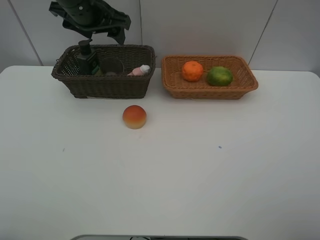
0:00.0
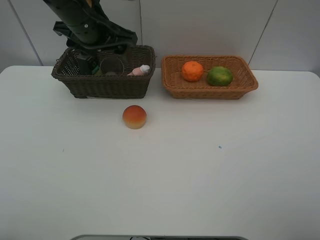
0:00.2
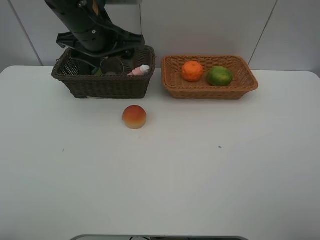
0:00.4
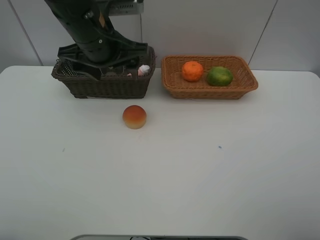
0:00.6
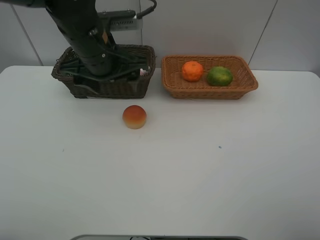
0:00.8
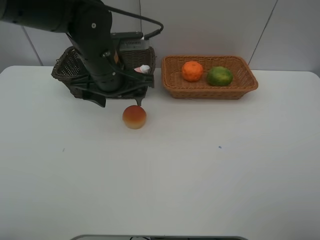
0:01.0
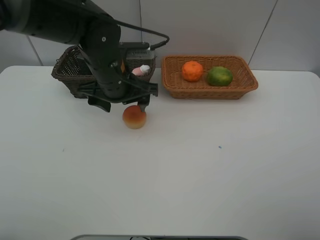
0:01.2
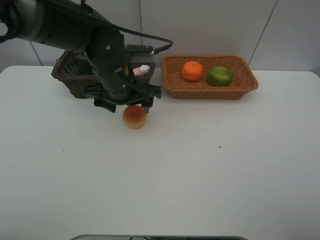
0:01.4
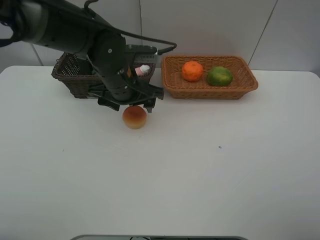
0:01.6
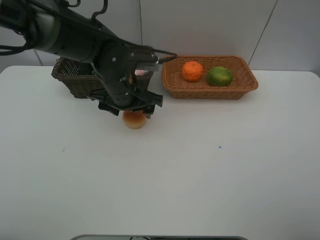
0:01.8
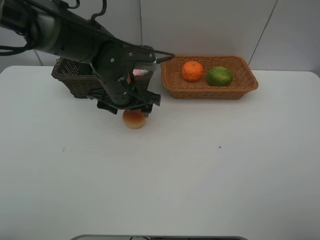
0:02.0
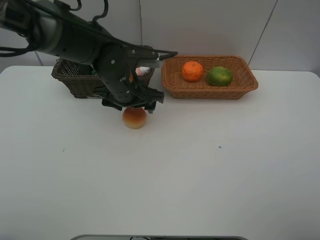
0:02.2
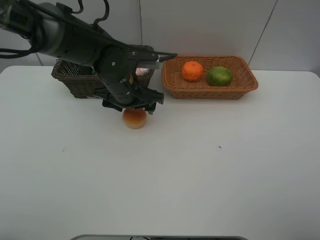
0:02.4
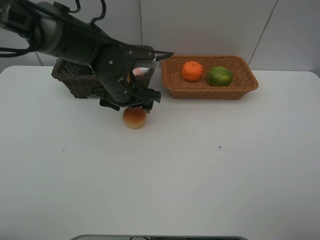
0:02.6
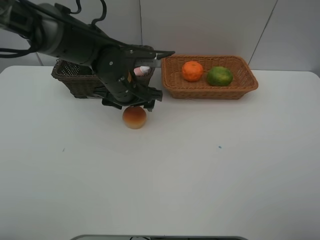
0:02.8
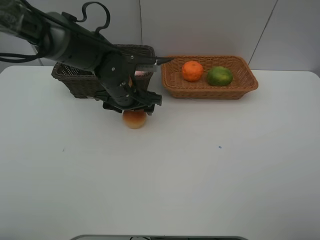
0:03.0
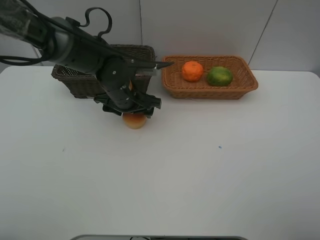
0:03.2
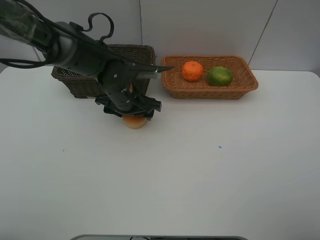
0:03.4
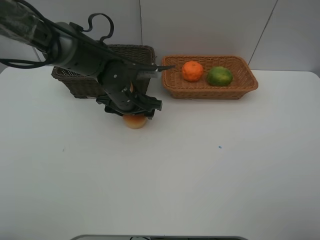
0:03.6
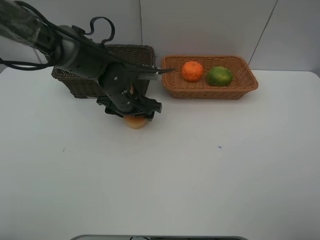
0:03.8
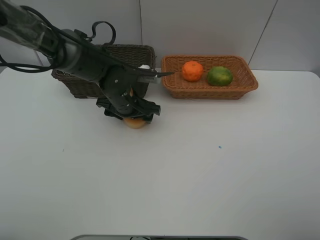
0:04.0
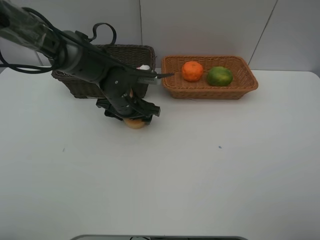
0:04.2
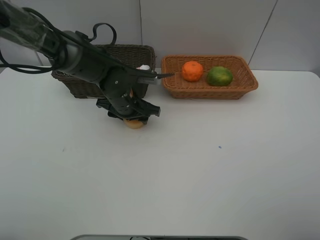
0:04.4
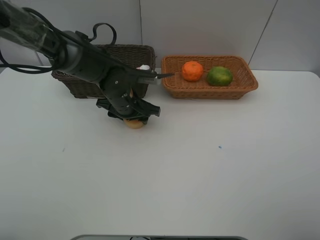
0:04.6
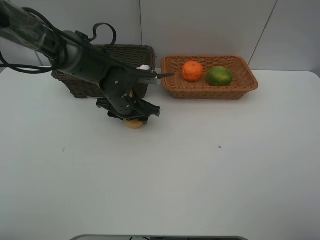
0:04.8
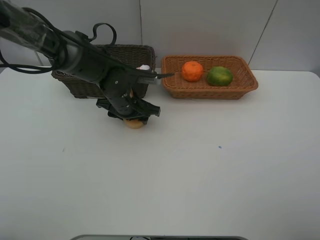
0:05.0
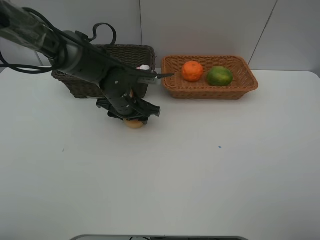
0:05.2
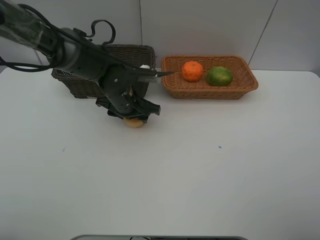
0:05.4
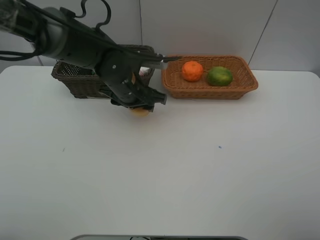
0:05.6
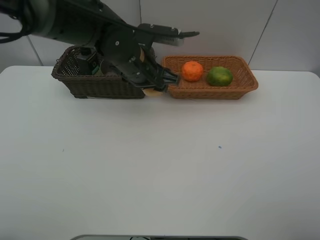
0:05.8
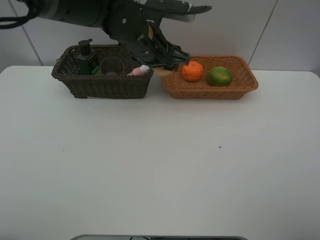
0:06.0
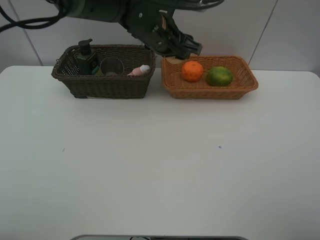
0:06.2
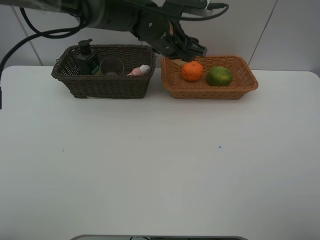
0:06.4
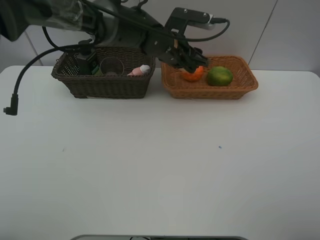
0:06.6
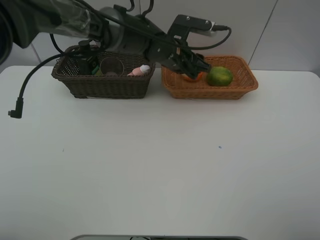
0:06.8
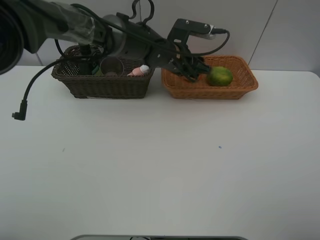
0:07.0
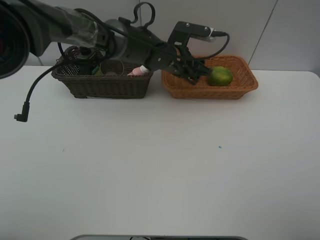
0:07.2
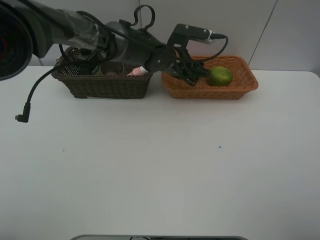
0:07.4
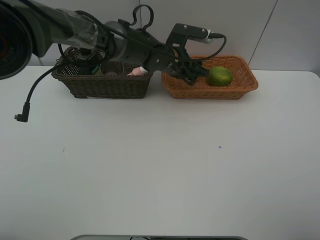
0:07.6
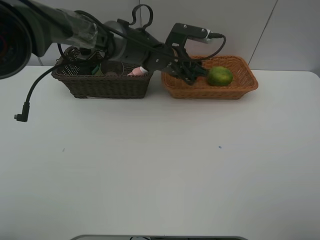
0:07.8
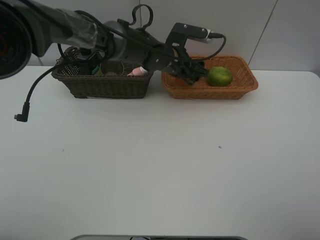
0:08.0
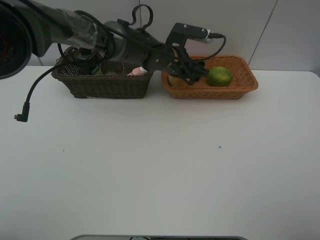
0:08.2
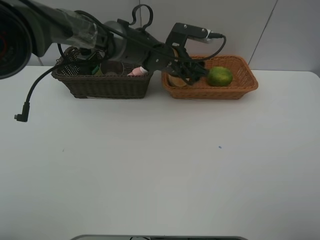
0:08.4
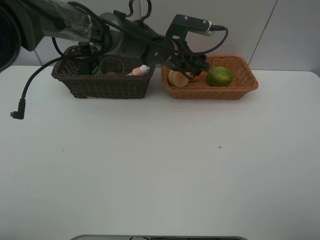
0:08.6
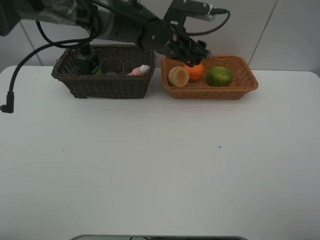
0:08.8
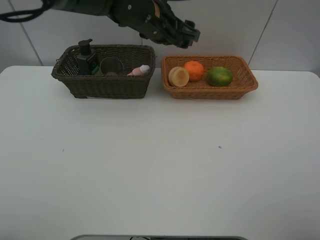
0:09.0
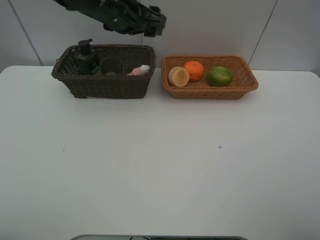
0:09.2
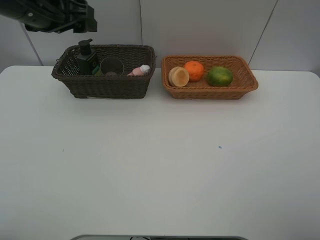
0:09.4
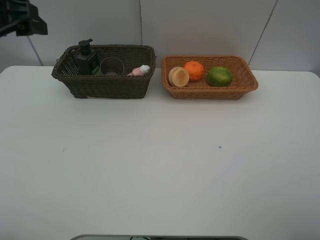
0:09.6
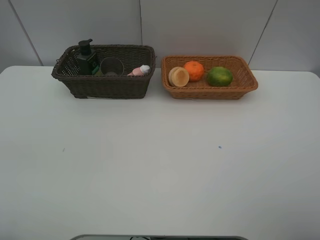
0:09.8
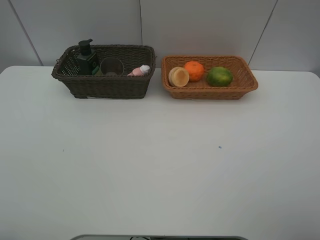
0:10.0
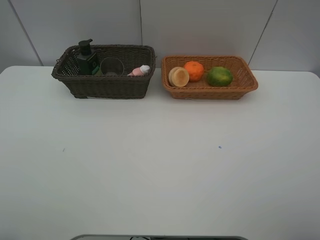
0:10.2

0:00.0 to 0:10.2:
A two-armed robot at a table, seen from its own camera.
Task of the whole recording: place multiple objects separately in different baskets.
0:00.0 to 0:01.4: The left gripper heads downward, backward and to the right, covering some 15 cm.
0:01.4 to 0:03.0: The left gripper ends up roughly 5 cm from where it was.
0:03.0 to 0:04.4: The grippers stay close to where they were, moving slightly.
0:04.4 to 0:05.8: The left gripper travels upward by approximately 10 cm.
0:05.8 to 0:07.2: The left gripper heads to the right and forward, covering some 10 cm.
0:07.2 to 0:08.8: The left gripper shifts roughly 5 cm upward.
0:08.8 to 0:10.2: The left gripper heads backward and to the left, covering about 50 cm.

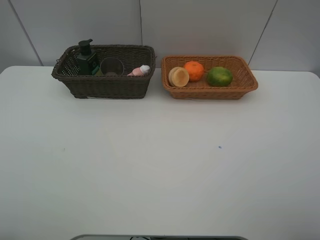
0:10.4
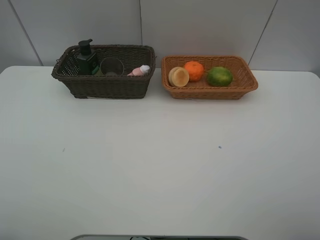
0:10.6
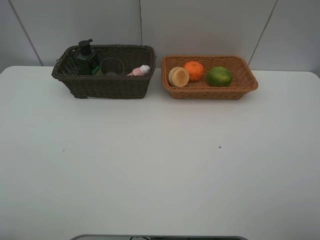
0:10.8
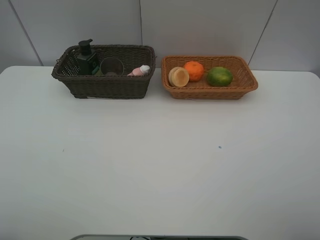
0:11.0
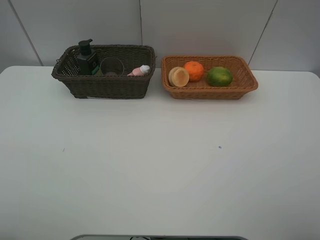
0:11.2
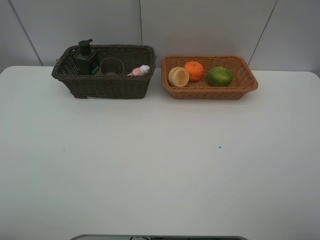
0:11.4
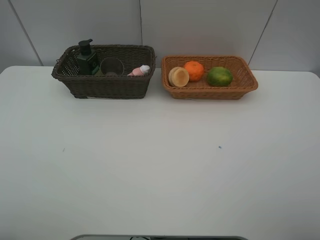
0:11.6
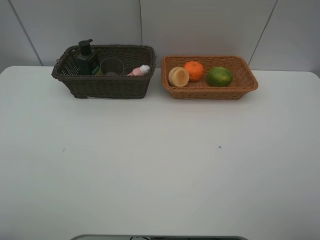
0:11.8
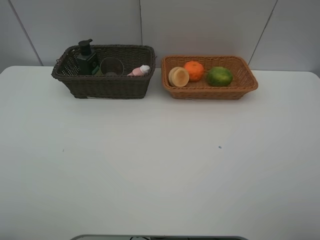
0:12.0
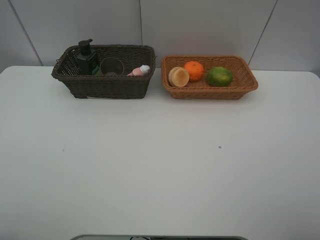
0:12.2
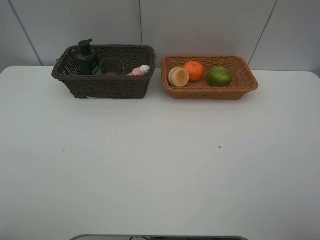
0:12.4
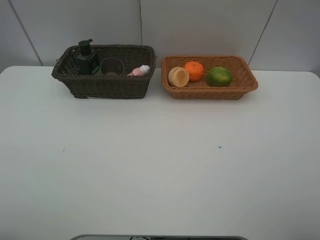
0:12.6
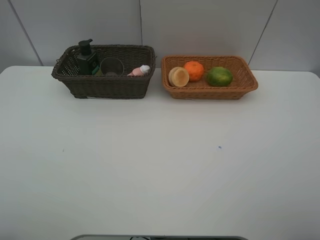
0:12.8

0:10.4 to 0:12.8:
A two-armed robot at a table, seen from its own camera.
Task of the whole recording: place multiple objects separately in different baskets.
0:11.6 to 0:12.8: Neither gripper changes place.

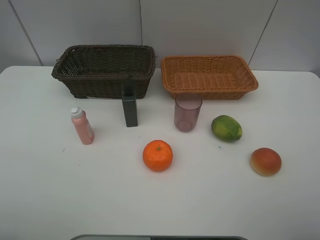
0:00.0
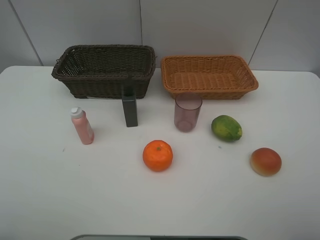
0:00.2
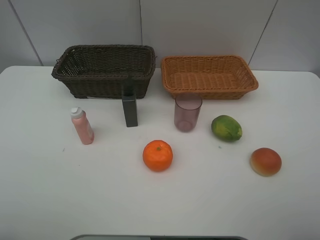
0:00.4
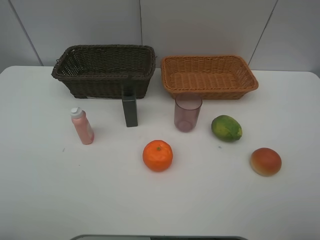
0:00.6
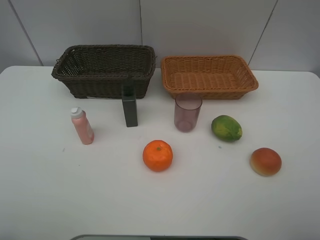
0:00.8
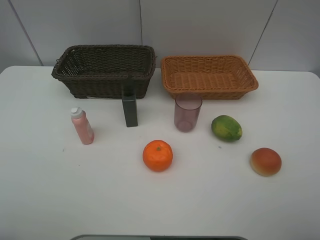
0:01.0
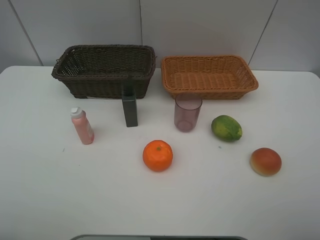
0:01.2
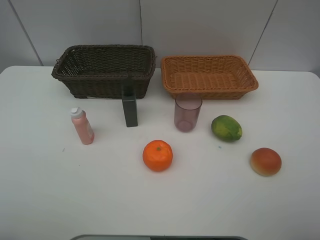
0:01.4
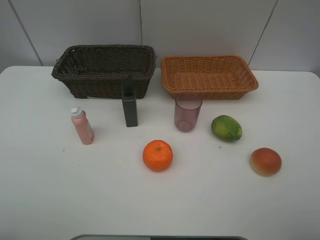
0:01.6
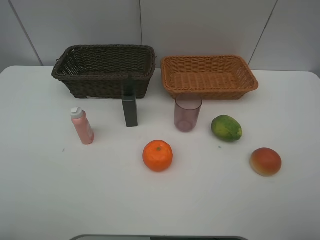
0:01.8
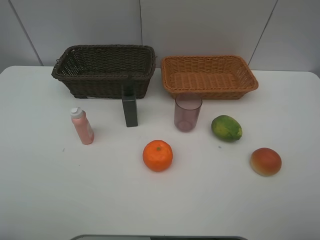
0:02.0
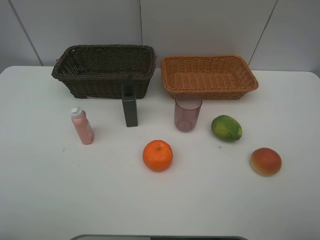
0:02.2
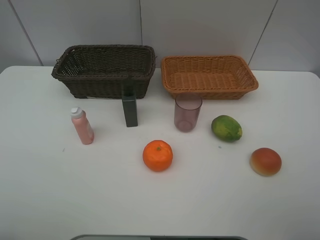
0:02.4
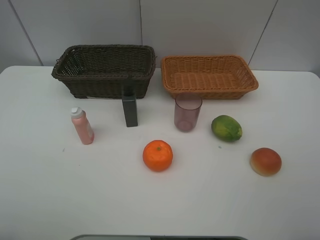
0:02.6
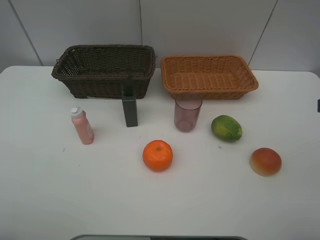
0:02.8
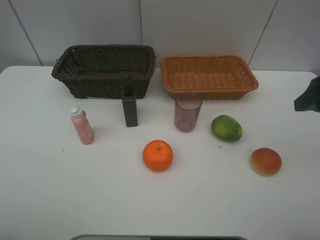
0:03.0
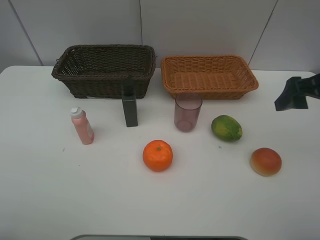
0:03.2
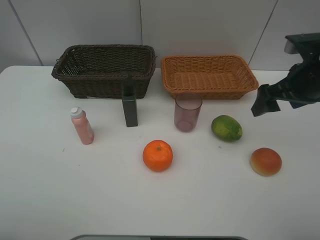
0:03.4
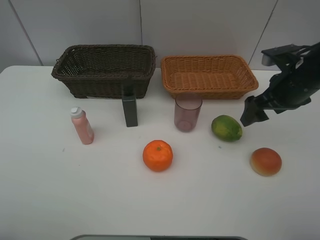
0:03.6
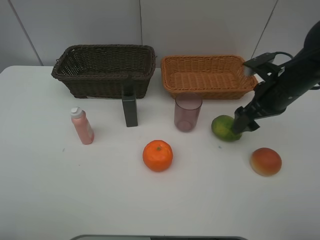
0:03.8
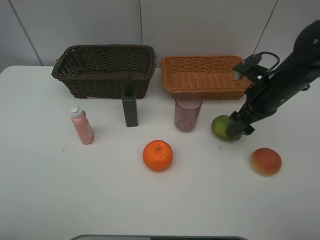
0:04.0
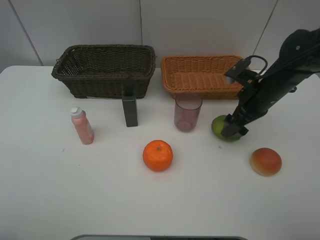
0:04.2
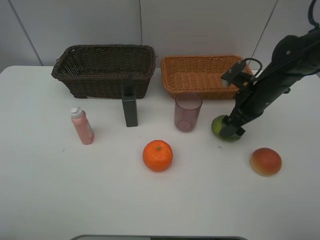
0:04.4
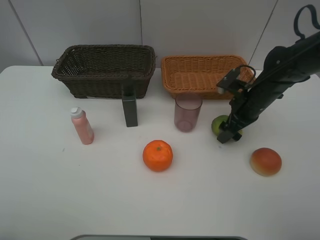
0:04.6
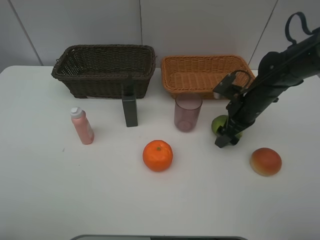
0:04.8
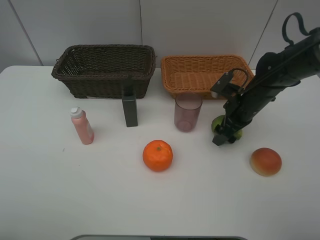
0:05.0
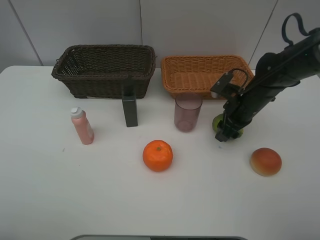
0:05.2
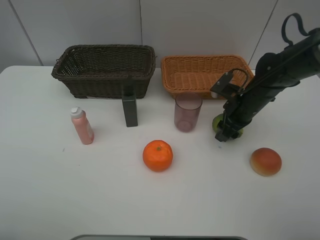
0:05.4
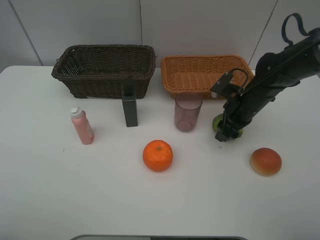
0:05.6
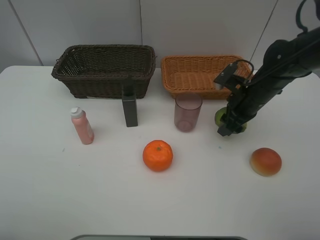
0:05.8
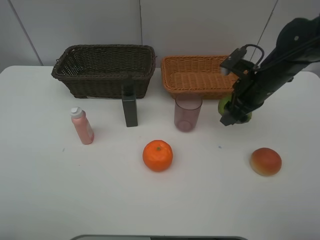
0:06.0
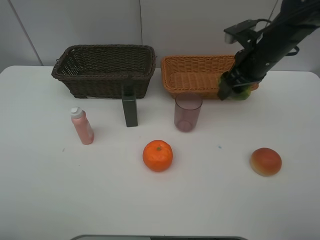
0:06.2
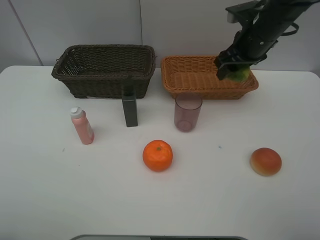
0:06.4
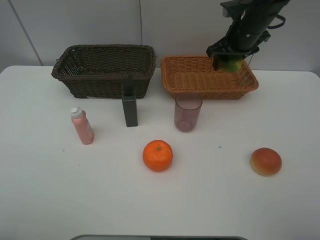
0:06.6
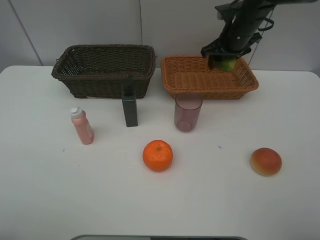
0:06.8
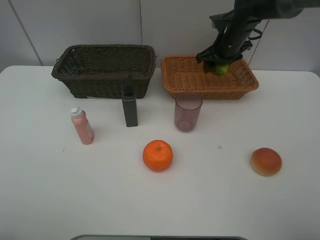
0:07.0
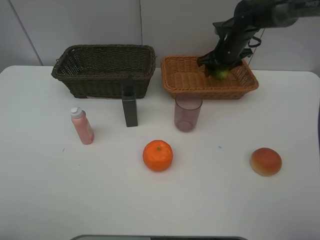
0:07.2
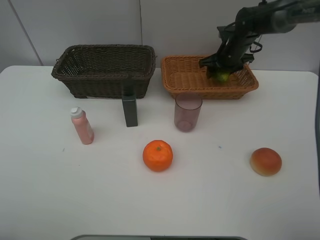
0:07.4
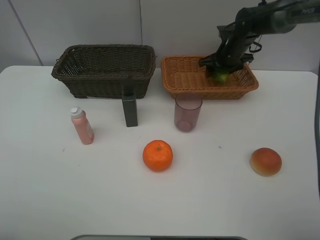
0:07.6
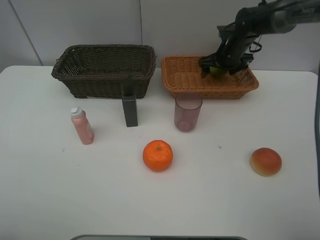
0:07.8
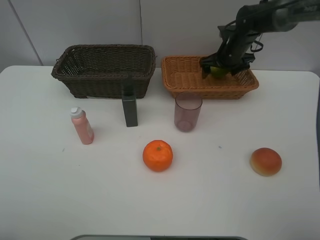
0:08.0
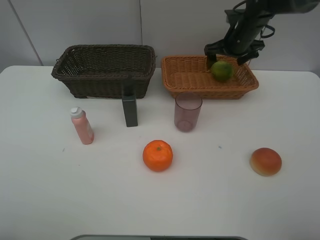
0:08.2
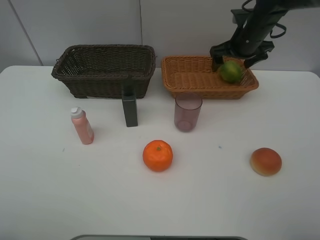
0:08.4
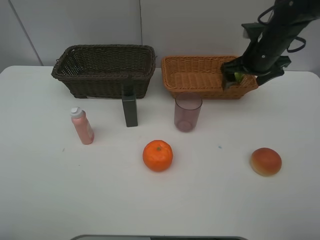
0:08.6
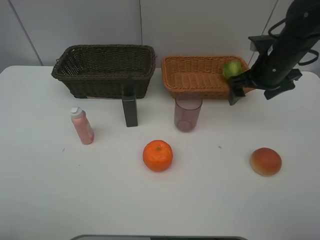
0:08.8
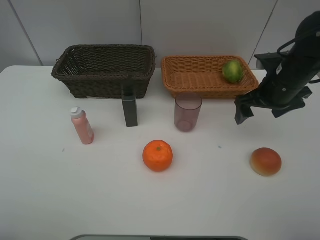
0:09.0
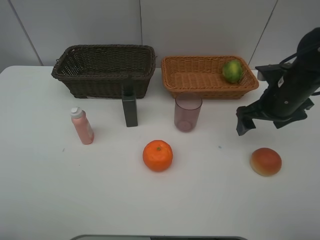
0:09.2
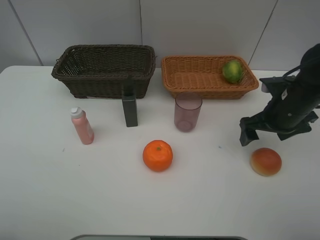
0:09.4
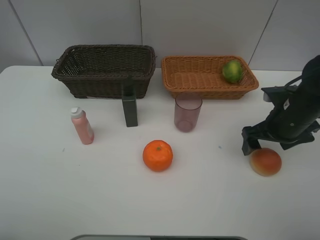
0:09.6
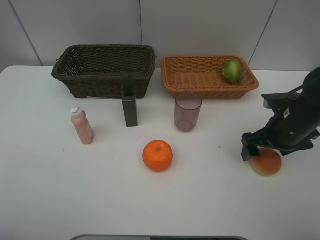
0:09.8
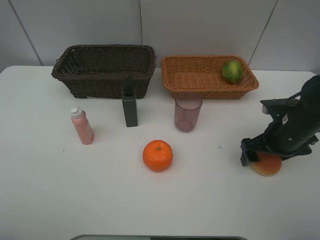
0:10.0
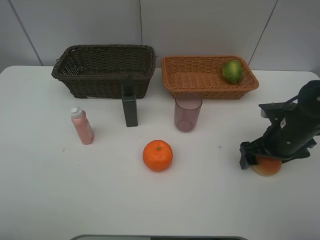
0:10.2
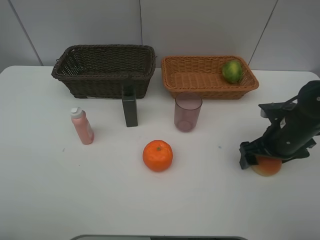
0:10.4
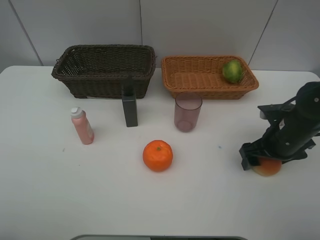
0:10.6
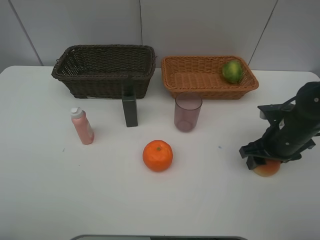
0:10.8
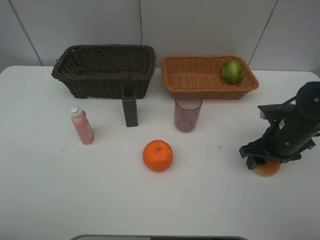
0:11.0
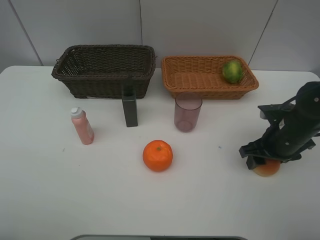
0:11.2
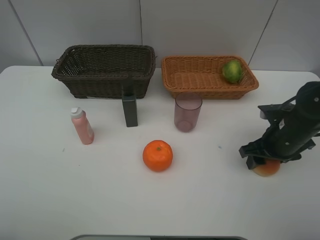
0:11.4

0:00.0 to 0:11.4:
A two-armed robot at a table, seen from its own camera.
Task of the whole recording: place multiple objects separately in different baskets.
0:00.0 to 0:01.4: Both grippers stay about where they are.
0:02.8 to 0:04.2: The right gripper shifts some 25 cm forward, downward and to the left.
0:04.2 to 0:05.6: The right gripper closes.
0:05.6 to 0:07.2: The right gripper heads forward, covering approximately 15 cm.
0:07.2 to 0:08.6: The right gripper moves backward, roughly 10 cm, and opens up.
0:08.6 to 0:10.0: The right gripper heads backward and downward, covering some 15 cm.
0:10.0 to 0:11.4: The right gripper closes.
